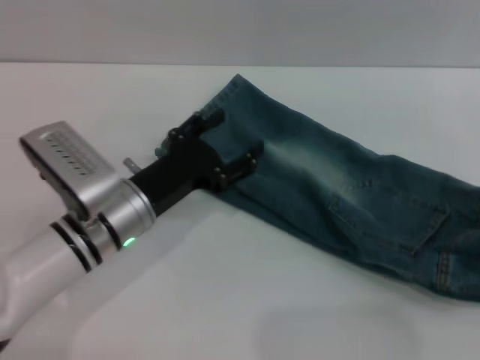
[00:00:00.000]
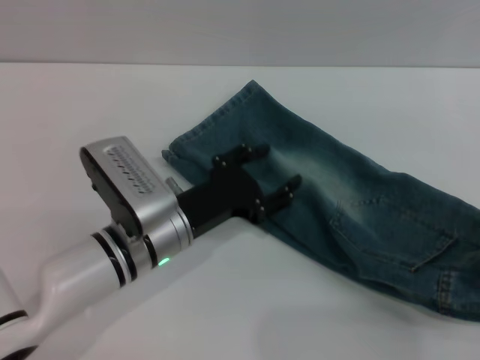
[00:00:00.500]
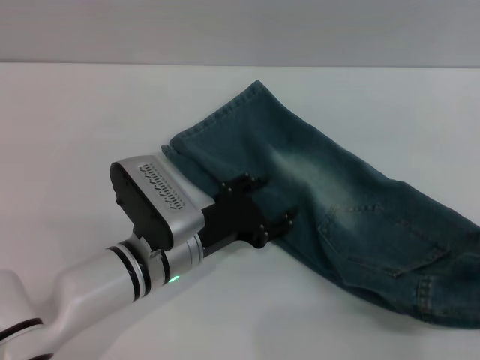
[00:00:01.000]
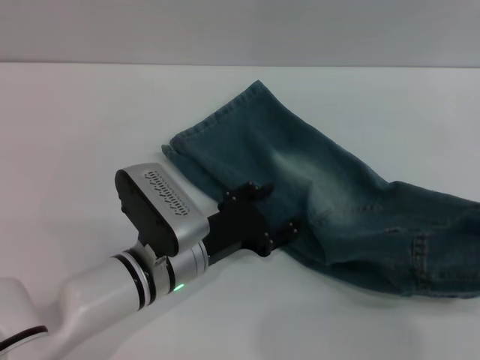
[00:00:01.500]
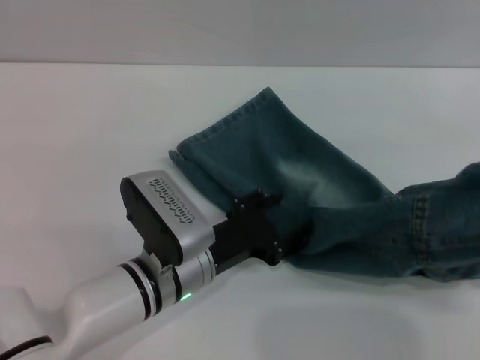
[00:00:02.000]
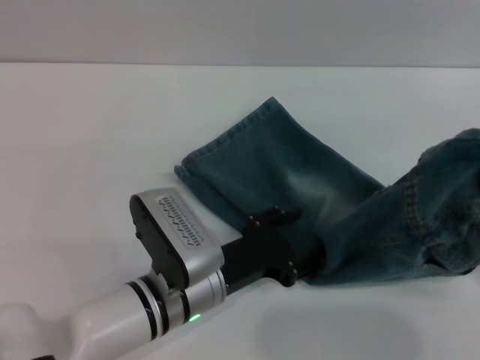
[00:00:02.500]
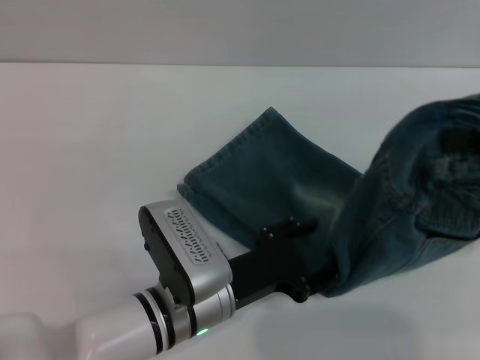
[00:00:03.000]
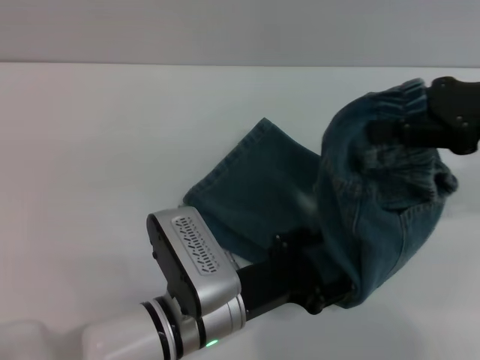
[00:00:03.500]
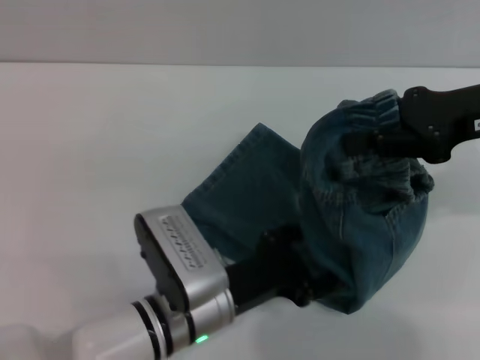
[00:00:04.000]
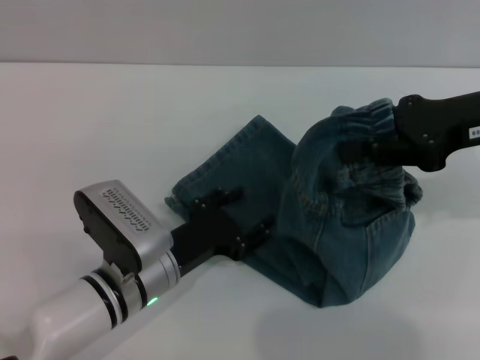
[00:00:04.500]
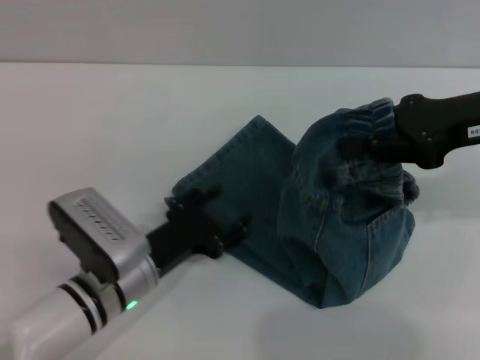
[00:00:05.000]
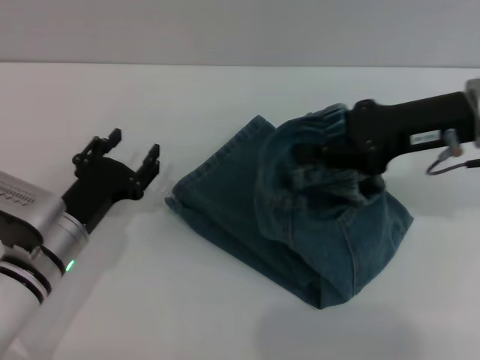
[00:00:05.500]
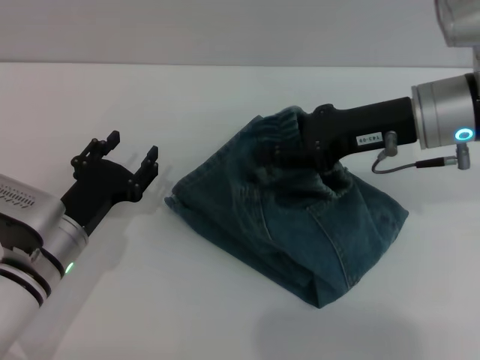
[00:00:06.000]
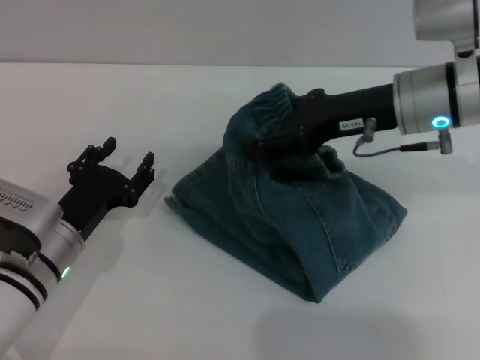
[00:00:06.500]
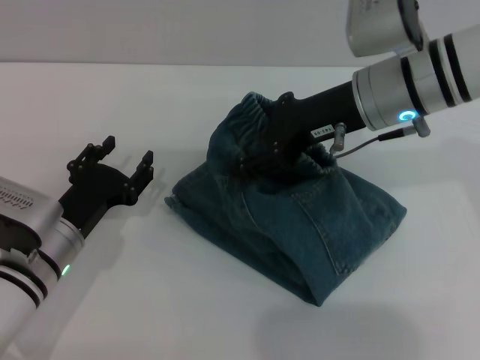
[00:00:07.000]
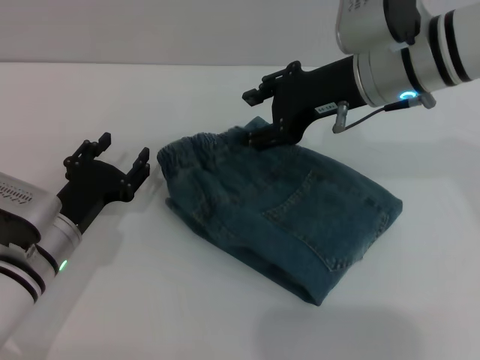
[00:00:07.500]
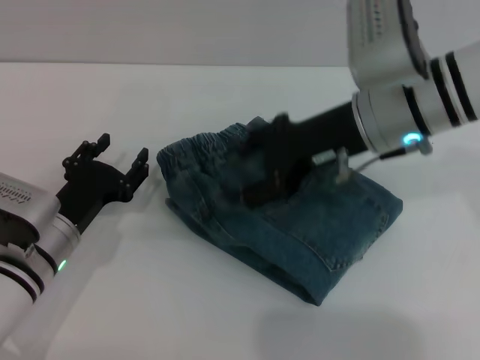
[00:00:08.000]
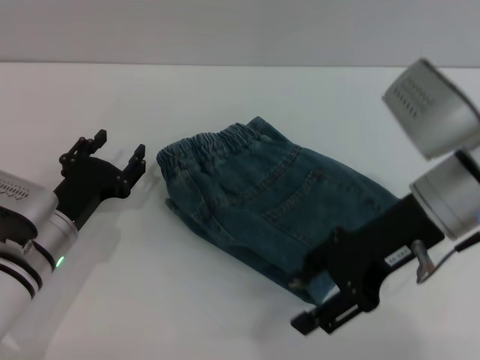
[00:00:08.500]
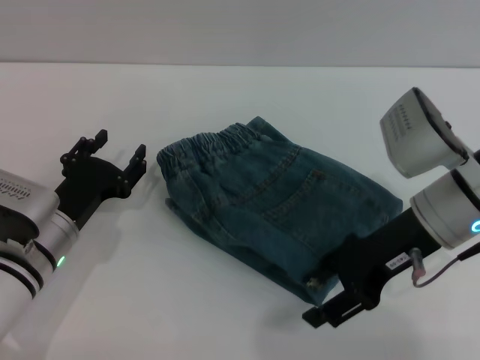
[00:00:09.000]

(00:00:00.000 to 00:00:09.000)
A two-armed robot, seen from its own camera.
Step, 00:00:00.000 - 00:00:07.500: Fold the pants from right to left with the right gripper.
00:00:00.000 - 00:00:02.000: The left gripper goes some 5 cm to the right.
00:00:02.000 - 00:00:04.500: The right gripper moves to the left and forward, approximately 15 cm.
00:00:04.500 - 00:00:07.000: Both grippers move to the left, roughly 10 cm. The right gripper opens its fingers.
00:00:07.000 - 00:00:09.000: The right gripper travels backward and downward by some 10 cm.

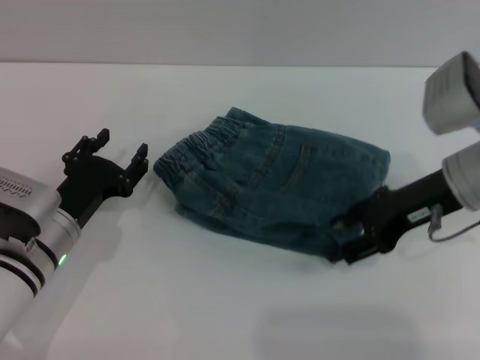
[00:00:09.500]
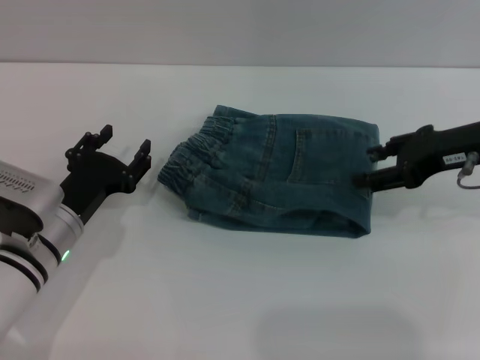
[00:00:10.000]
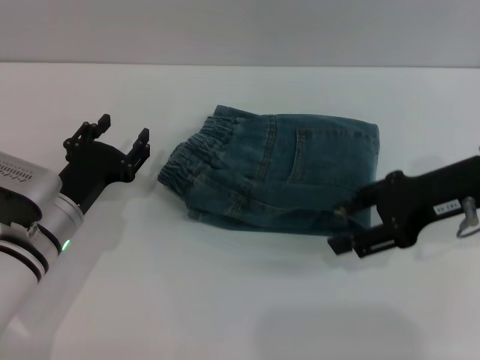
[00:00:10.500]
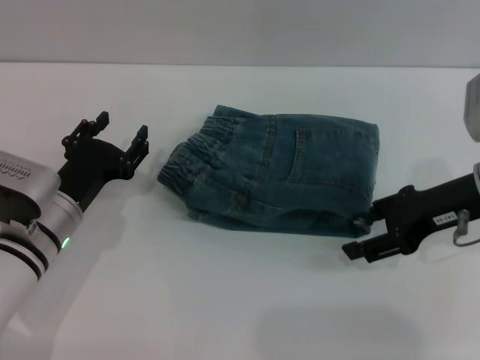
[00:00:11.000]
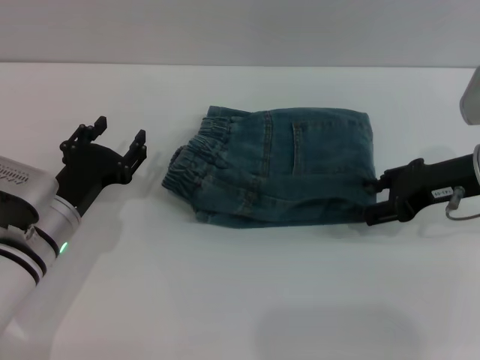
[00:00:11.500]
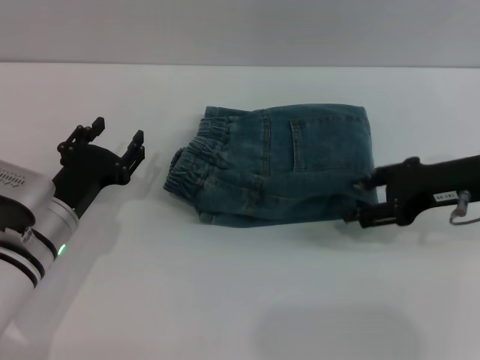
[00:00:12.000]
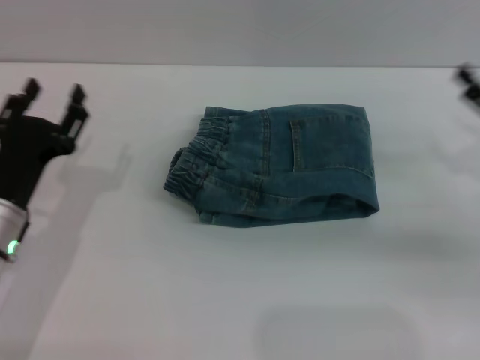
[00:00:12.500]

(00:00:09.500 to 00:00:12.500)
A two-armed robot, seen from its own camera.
Step, 00:00:09.500 - 00:00:12.000: Place the folded trousers onto the center area with the right grippers.
00:00:09.500 - 00:00:11.000: The grippers stay close to where they were, moving slightly.
00:00:11.000 - 00:00:12.500: The right gripper shifts some 10 cm to the right.
